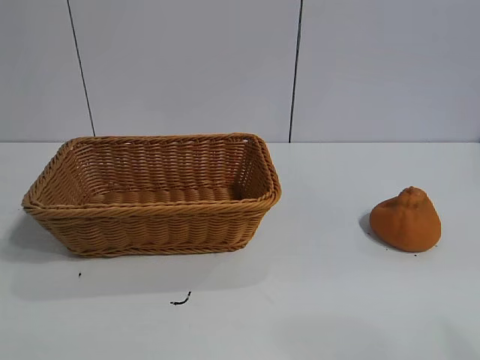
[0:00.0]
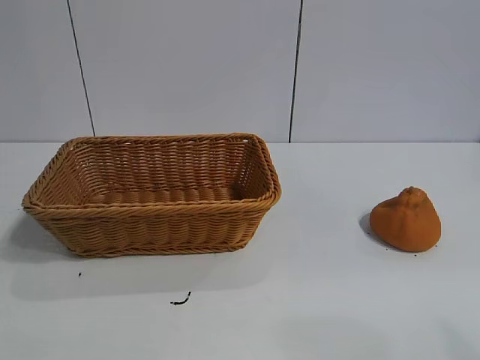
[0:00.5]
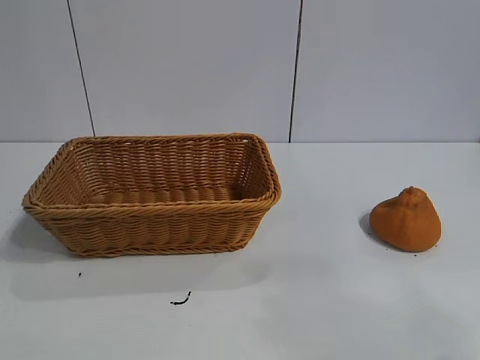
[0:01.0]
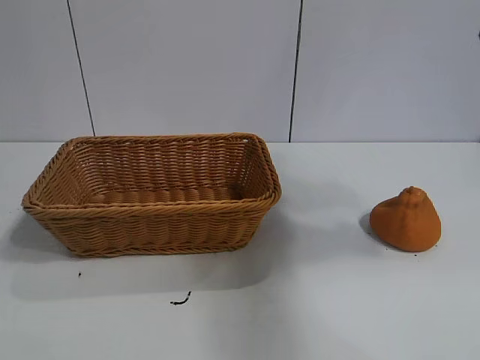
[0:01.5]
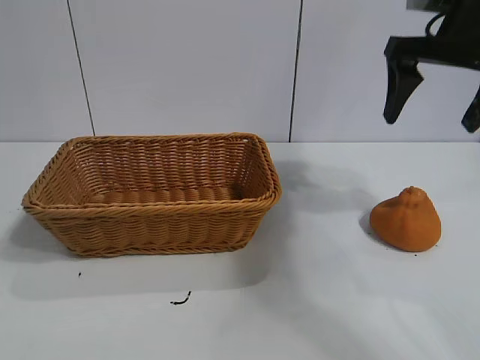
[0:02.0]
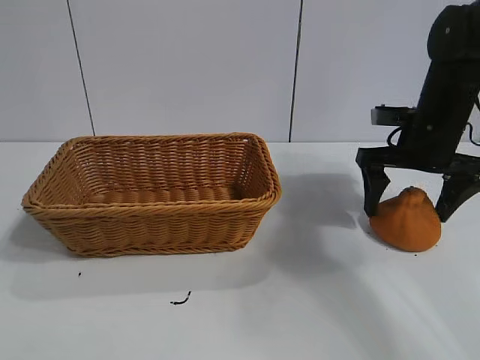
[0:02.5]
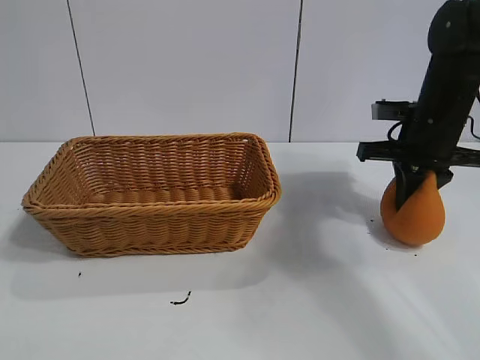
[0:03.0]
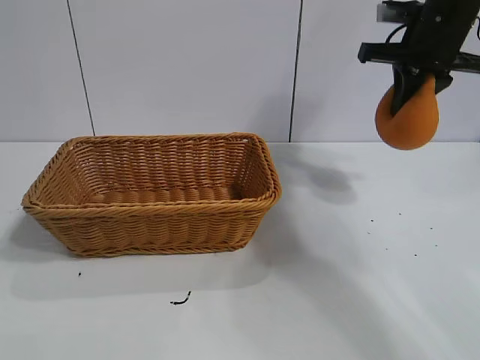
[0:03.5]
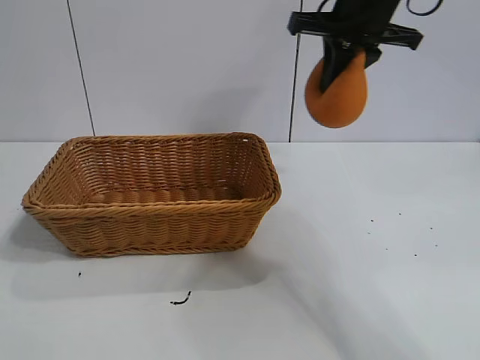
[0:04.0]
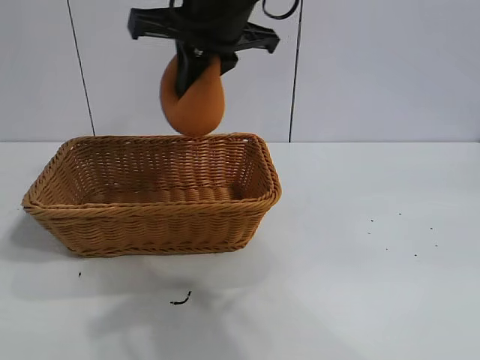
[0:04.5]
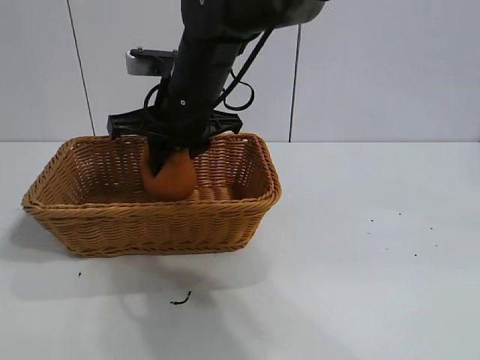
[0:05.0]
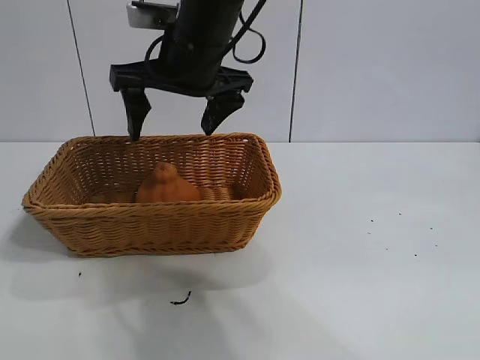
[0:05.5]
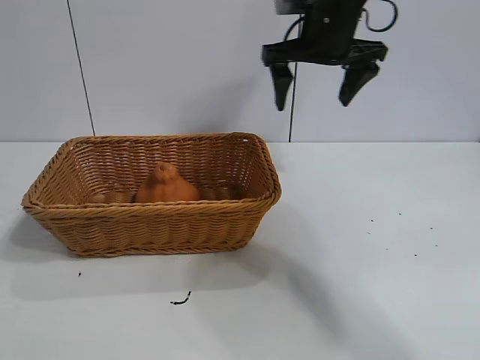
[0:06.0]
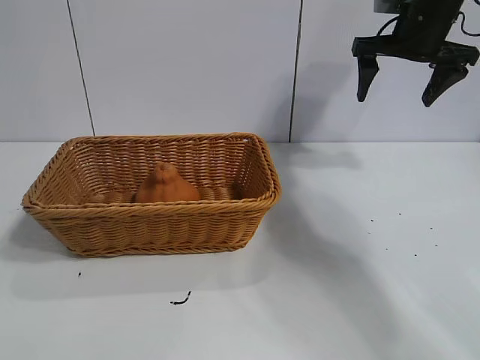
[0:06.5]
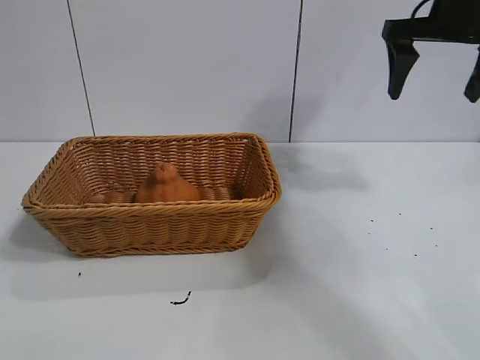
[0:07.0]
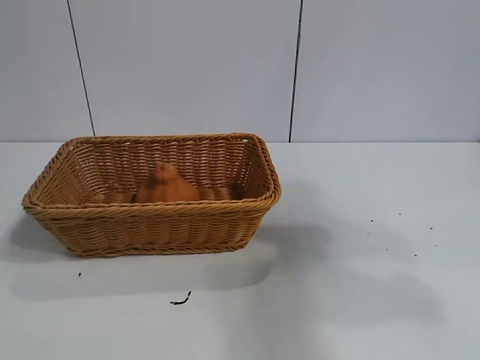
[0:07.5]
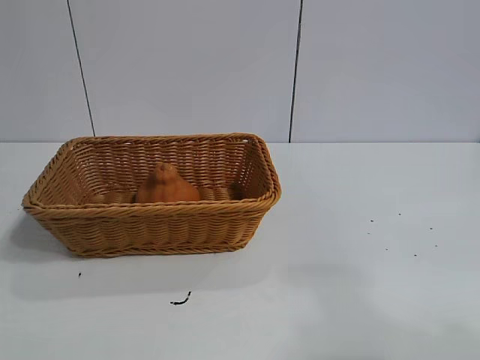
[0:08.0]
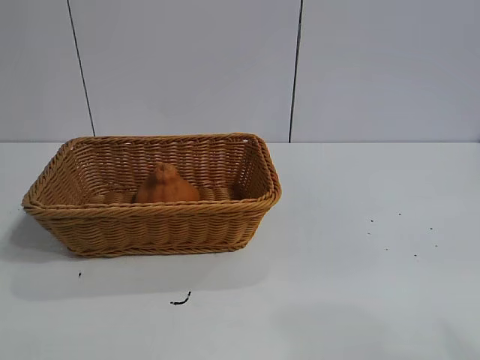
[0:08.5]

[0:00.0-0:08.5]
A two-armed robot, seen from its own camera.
Task of the whole recording: pick up the orange and put it into the basket.
Step, 0:01.0 to 0:02.5: Grasp the orange with right gripper.
Step, 0:03.0 to 0:05.0: Place the orange in the basket with right gripper.
